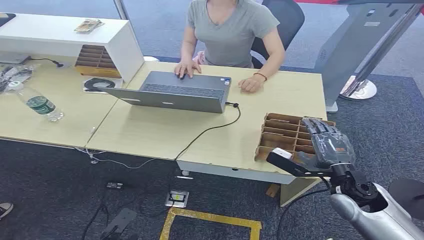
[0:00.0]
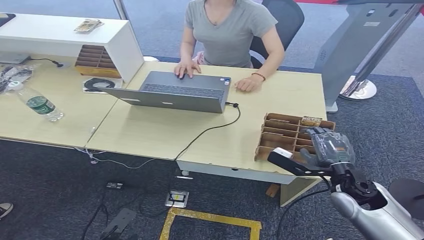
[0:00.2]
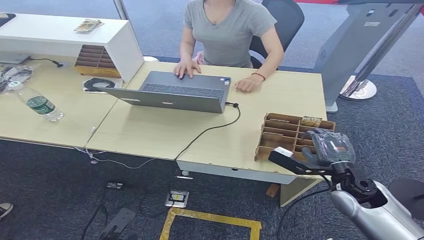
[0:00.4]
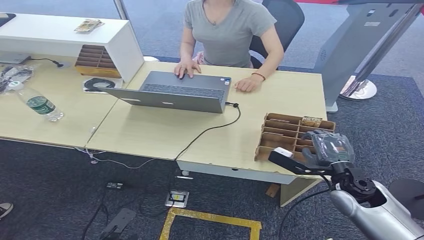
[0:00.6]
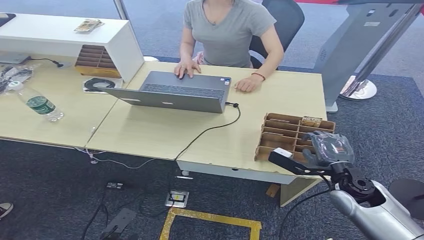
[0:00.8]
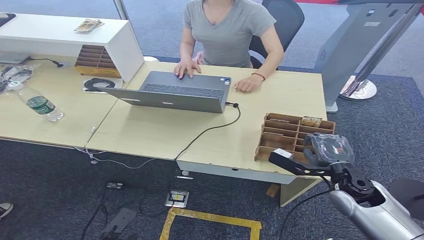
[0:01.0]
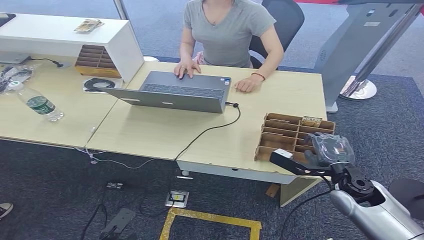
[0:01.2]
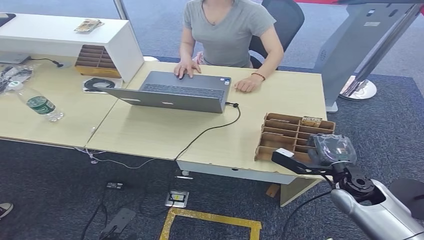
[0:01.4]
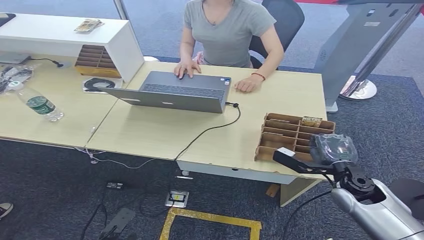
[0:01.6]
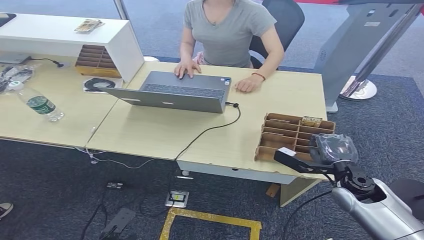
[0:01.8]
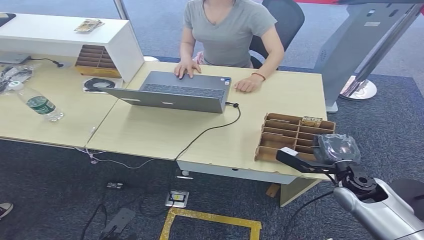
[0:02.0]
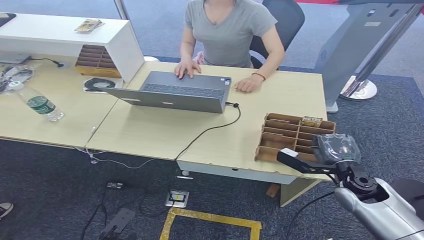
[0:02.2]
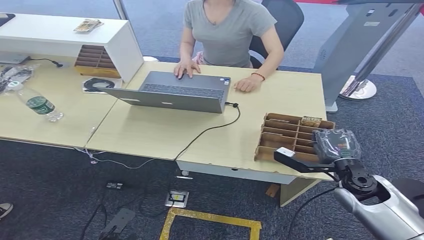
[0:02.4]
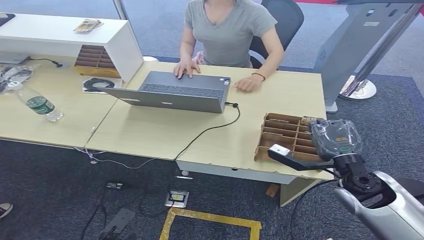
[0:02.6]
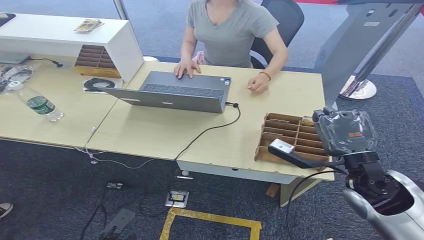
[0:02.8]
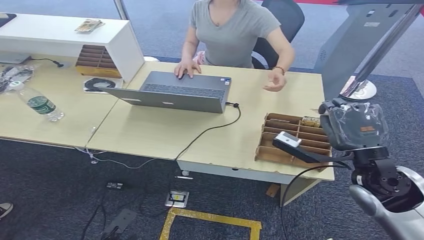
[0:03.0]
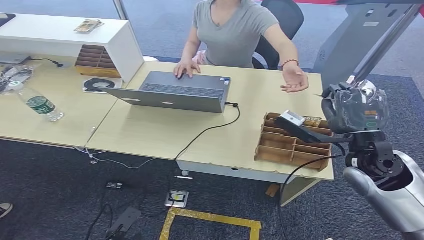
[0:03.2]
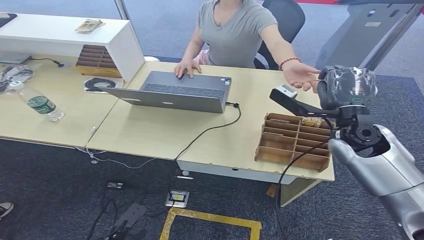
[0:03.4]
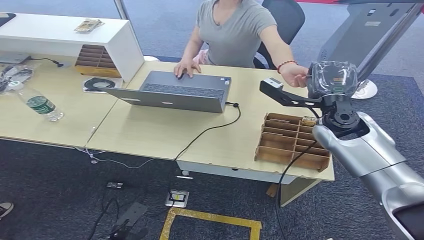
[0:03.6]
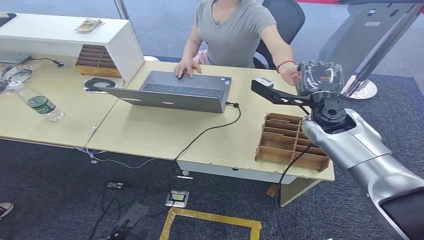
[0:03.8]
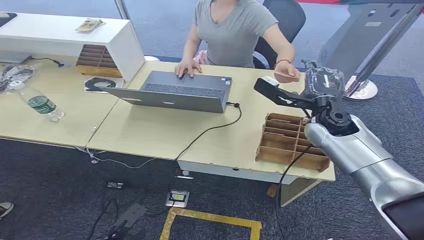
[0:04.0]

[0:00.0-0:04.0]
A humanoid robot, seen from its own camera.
Step, 0:00.0 to 0:02.2: Pick up the key card from the card box.
Step, 0:02.6 to 0:03.8: Hand the key card to the target.
0:01.4 to 0:02.6: The right hand heads upward, covering some 5 cm.
0:02.6 to 0:04.0: The right hand travels forward, upward and to the left by about 15 cm.

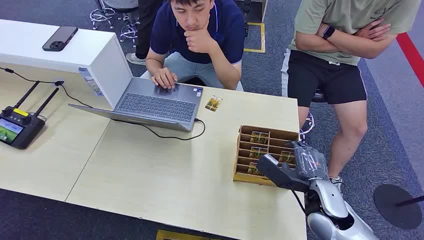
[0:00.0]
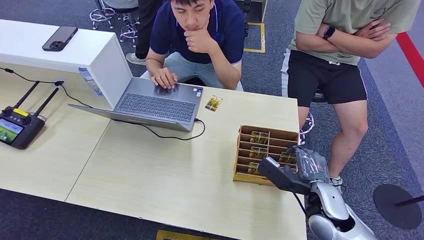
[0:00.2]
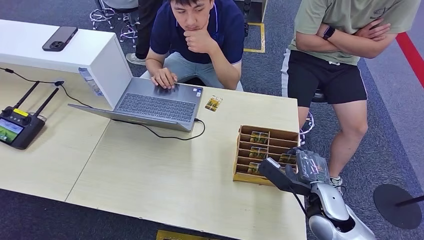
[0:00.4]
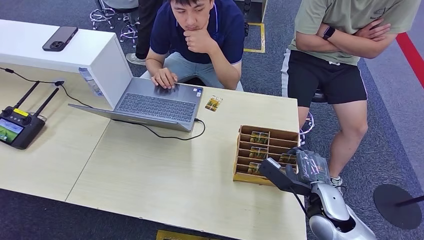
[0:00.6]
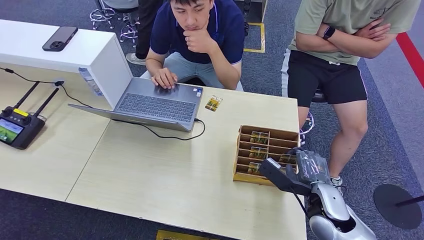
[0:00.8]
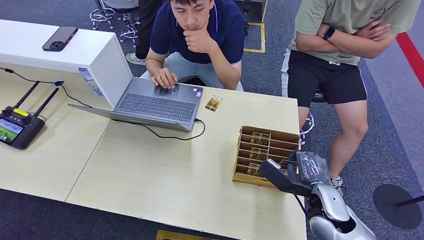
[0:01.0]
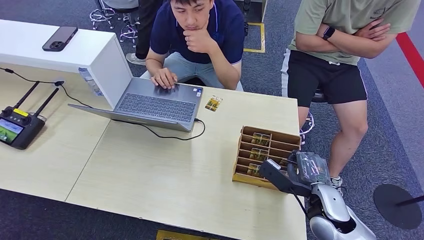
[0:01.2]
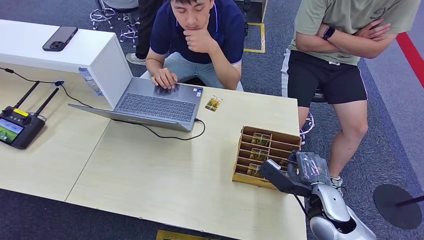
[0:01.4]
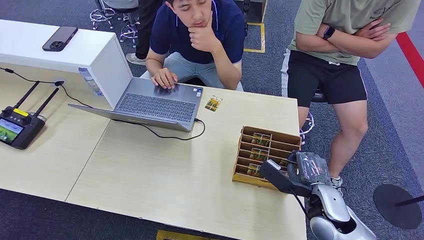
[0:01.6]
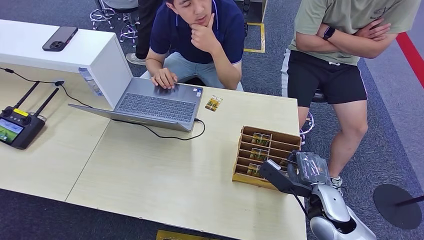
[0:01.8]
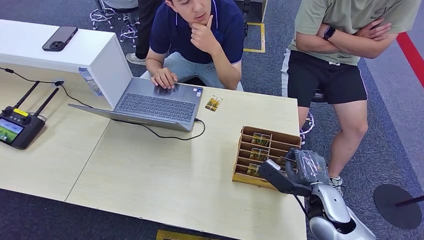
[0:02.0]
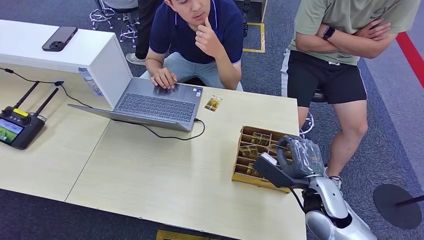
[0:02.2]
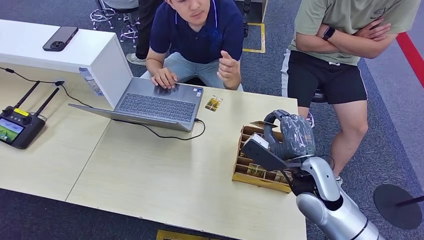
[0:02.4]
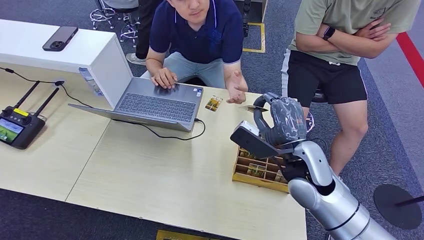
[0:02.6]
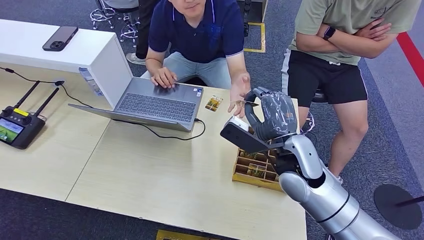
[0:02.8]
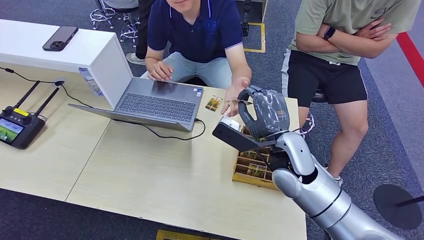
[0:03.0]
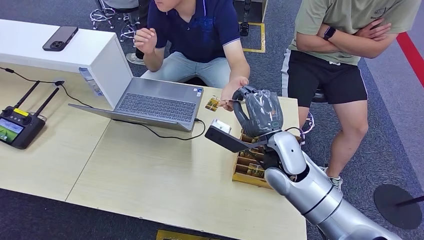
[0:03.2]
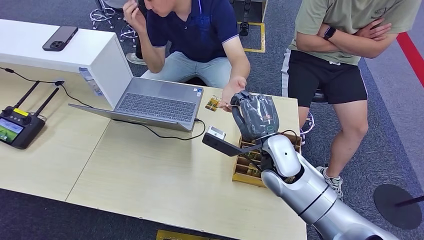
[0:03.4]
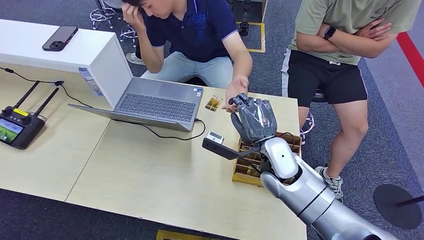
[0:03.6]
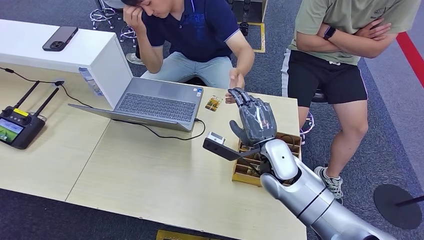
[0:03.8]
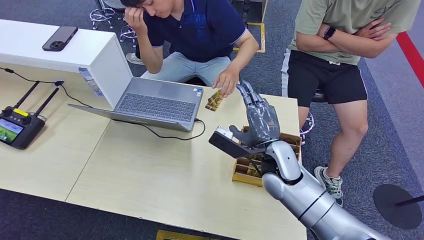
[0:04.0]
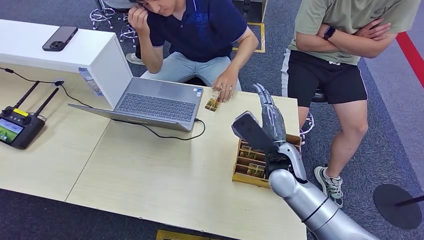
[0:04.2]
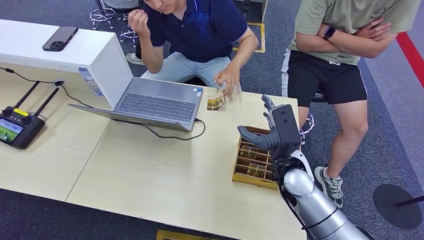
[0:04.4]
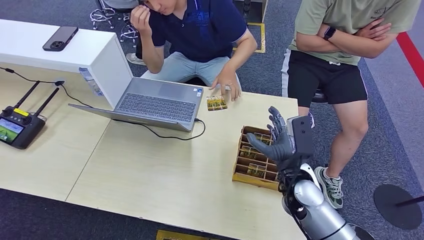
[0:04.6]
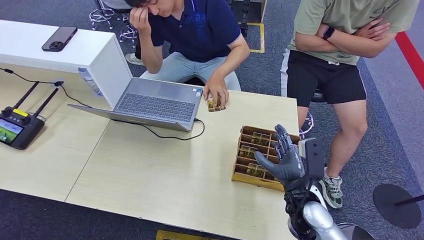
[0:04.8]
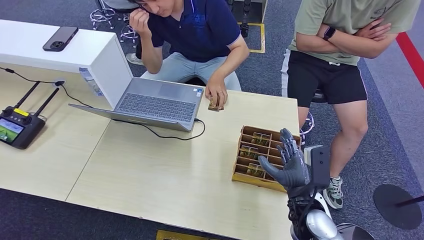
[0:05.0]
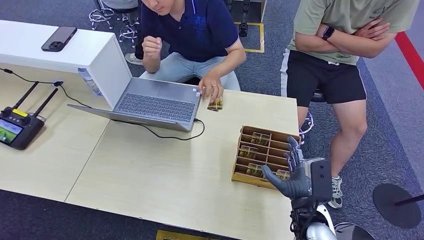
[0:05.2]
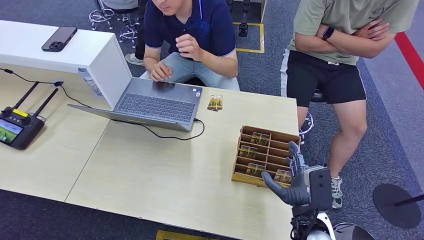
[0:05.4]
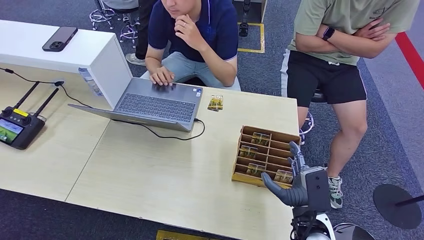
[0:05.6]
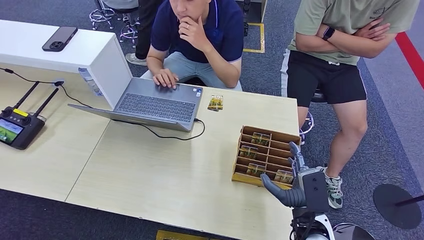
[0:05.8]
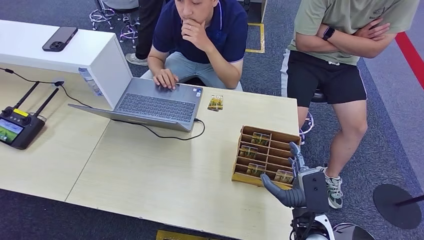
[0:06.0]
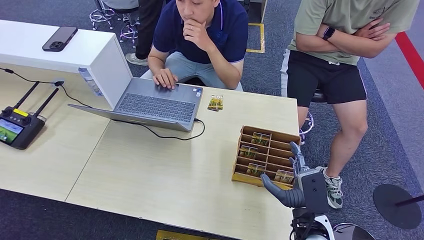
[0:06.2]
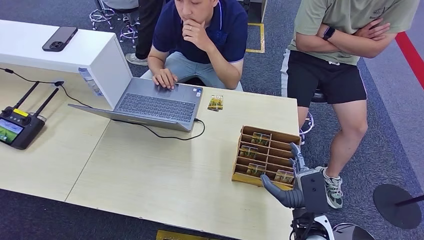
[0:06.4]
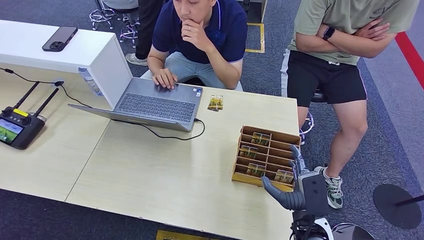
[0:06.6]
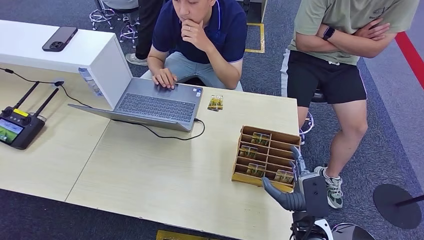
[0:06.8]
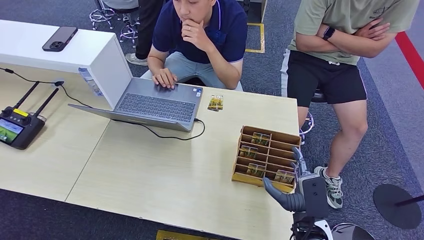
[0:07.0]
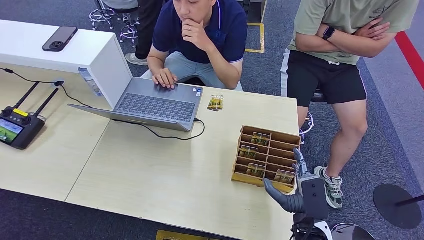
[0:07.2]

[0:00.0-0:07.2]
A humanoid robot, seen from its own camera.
Step, 0:00.0 to 0:02.4: Pick up the key card from the card box.
Step, 0:02.6 to 0:07.2: Hand the key card to the target.
0:01.4 to 0:02.8: The right hand shifts some 15 cm upward, to the left and forward.
0:02.8 to 0:04.4: The right hand travels downward by approximately 5 cm.
0:04.4 to 0:05.8: The right hand moves backward, downward and to the right, roughly 15 cm.
0:05.8 to 0:07.2: The hands move only a little.
